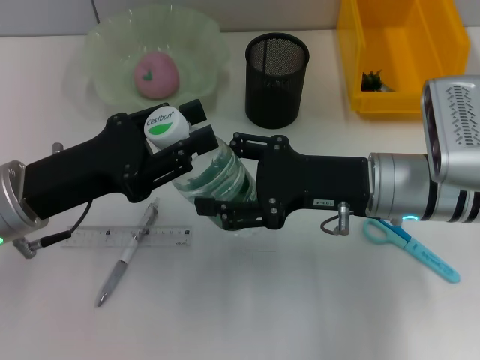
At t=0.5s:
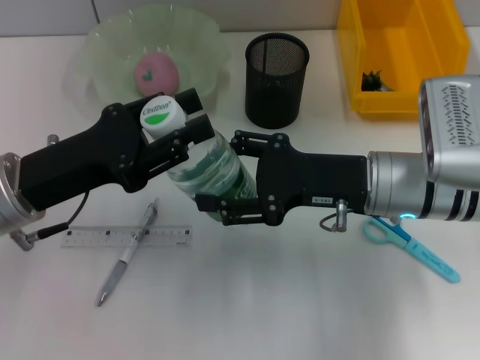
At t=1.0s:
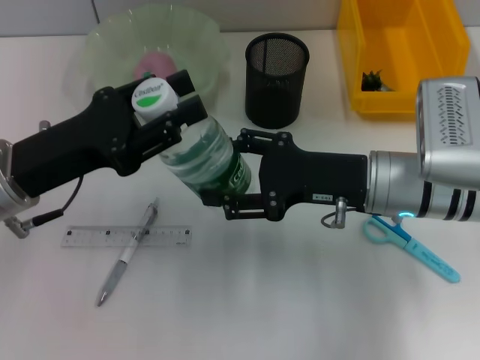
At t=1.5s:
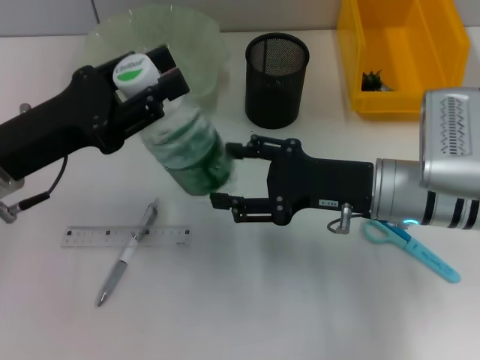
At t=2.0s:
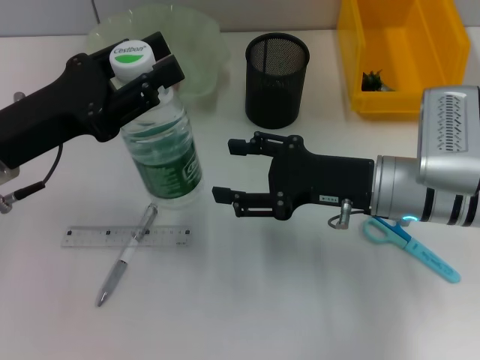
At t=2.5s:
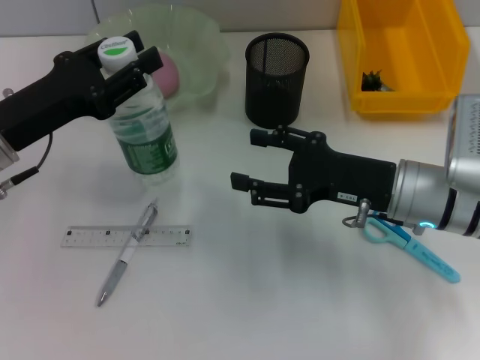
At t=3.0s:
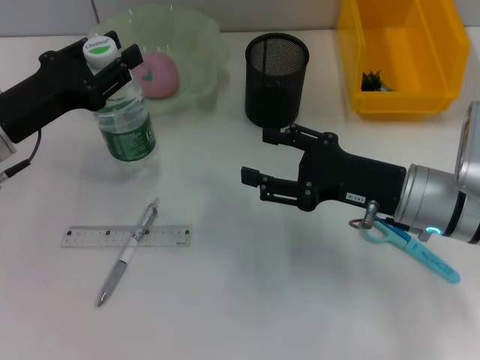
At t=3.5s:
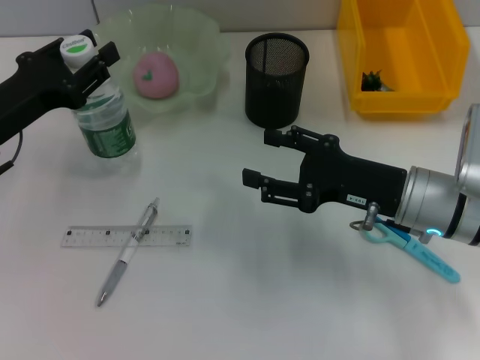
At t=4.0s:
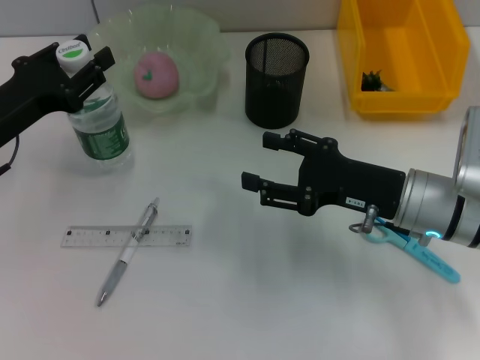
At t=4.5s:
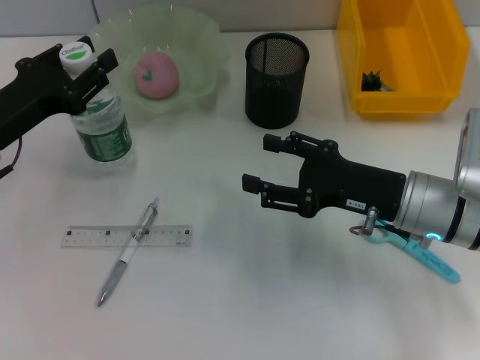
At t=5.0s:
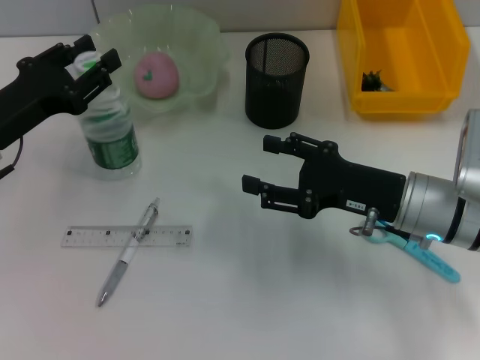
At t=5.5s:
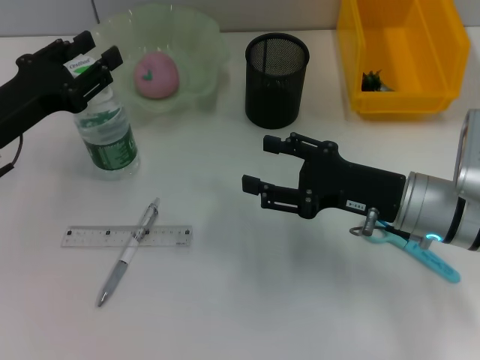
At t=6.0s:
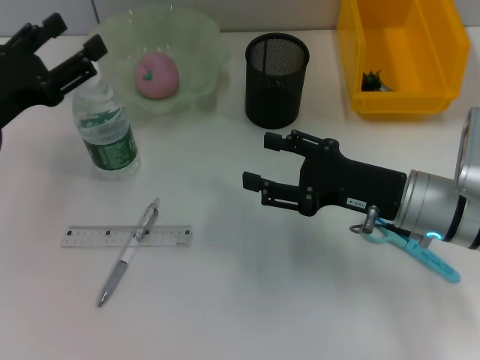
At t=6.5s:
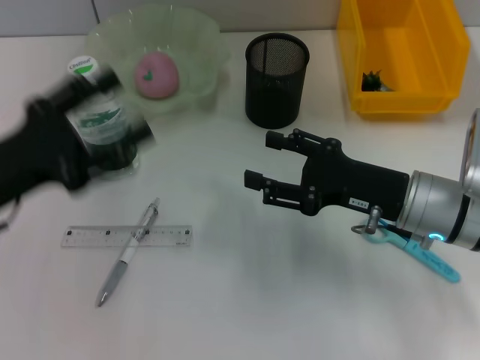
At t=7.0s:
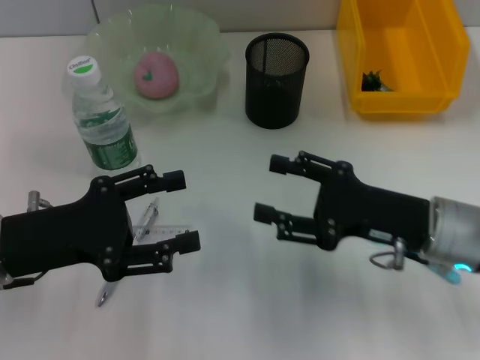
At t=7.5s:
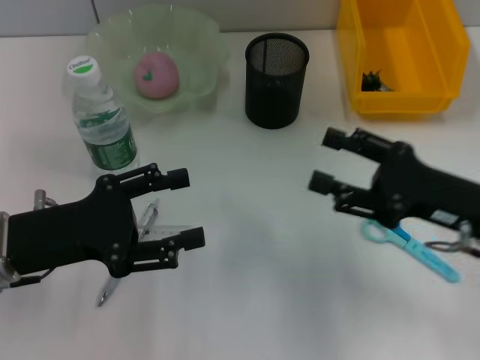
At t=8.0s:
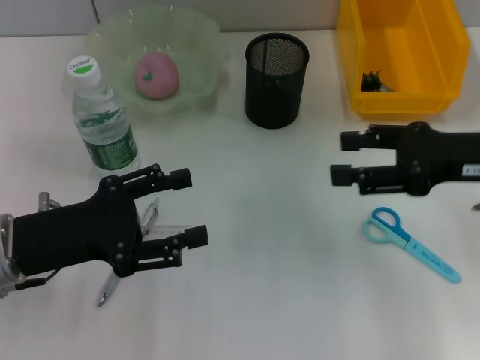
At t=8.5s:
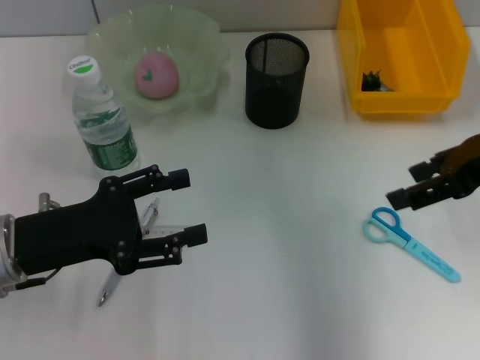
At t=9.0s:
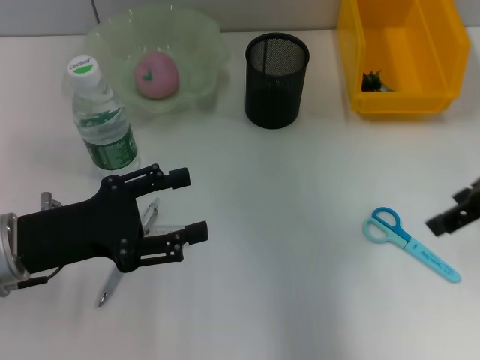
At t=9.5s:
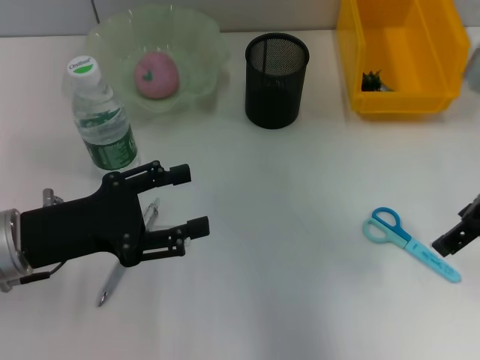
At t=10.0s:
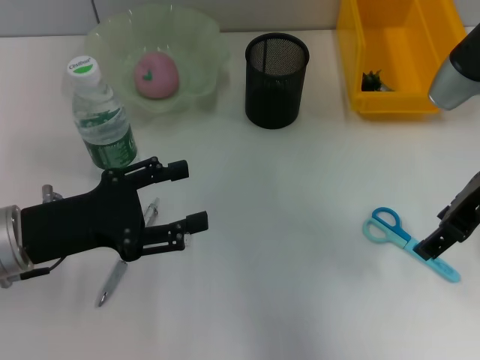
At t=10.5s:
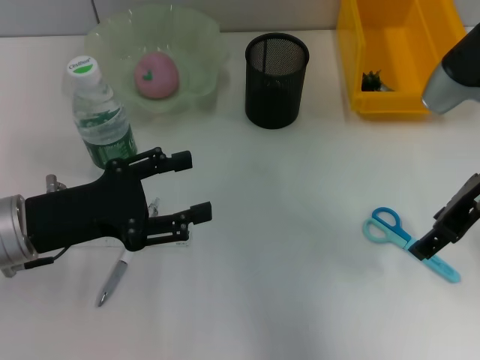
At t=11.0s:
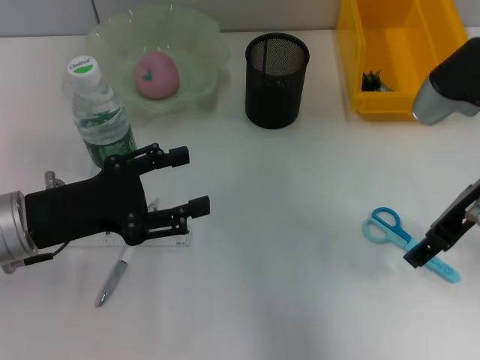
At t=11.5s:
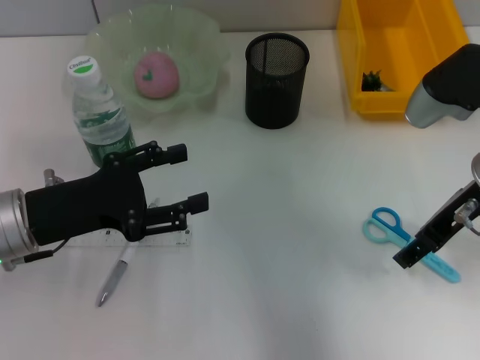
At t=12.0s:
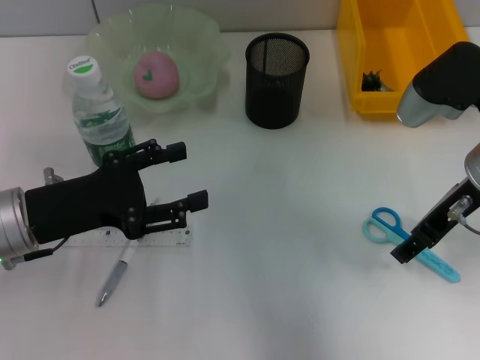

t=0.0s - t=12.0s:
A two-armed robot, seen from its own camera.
Step, t=2.0s - t=5.0s: Place the water bottle on the table with the left hand.
t=2.0s - t=4.0s: The left gripper shifts by some 5 cm.
t=4.0s - t=6.0s: The left gripper opens up.
t=6.0s - t=8.0s: The right gripper moves upward and to the right, approximately 10 cm. The left gripper travels backward by some 5 cm.
t=8.0s - t=10.0s: The right gripper changes place by some 5 cm.
t=10.0s - t=12.0s: There are only small adjustments of the grippers.

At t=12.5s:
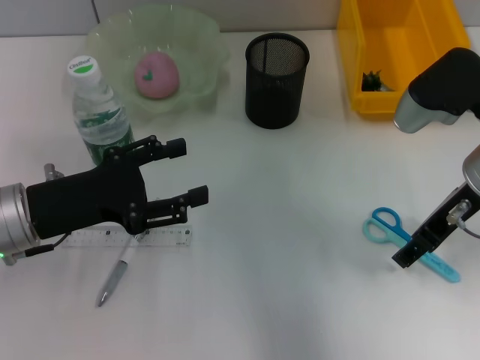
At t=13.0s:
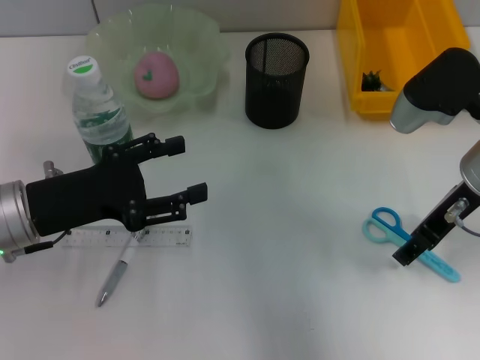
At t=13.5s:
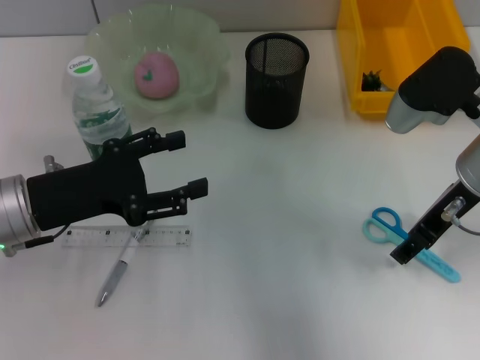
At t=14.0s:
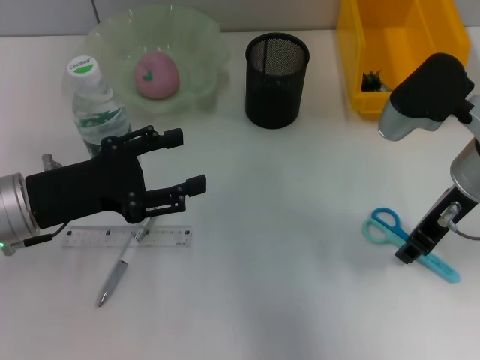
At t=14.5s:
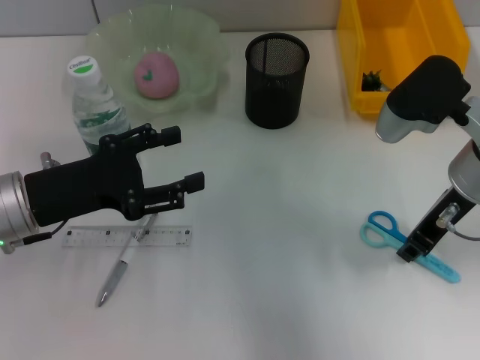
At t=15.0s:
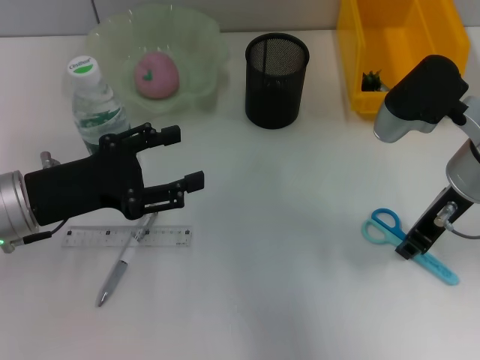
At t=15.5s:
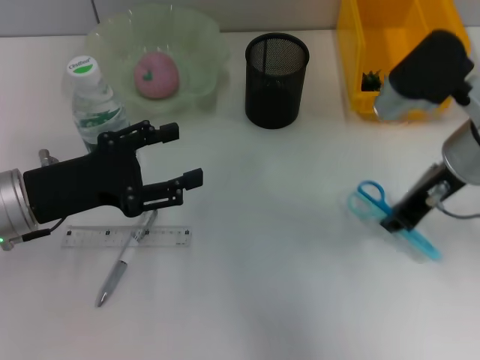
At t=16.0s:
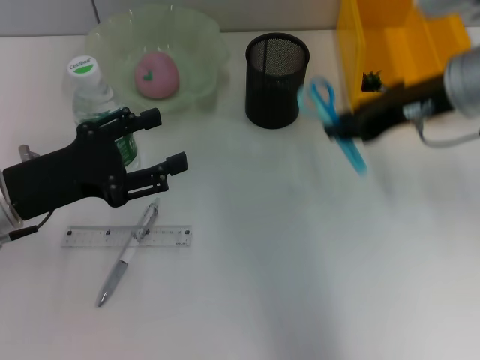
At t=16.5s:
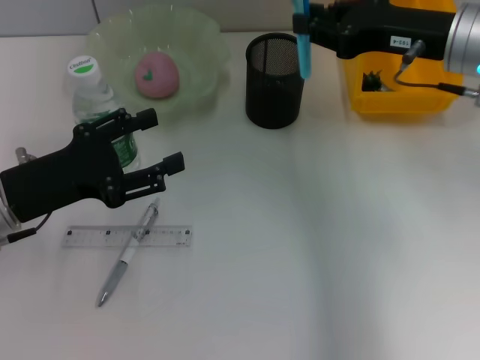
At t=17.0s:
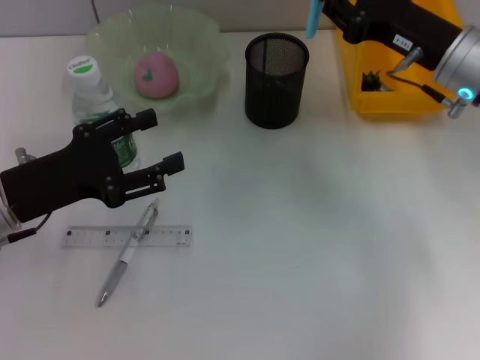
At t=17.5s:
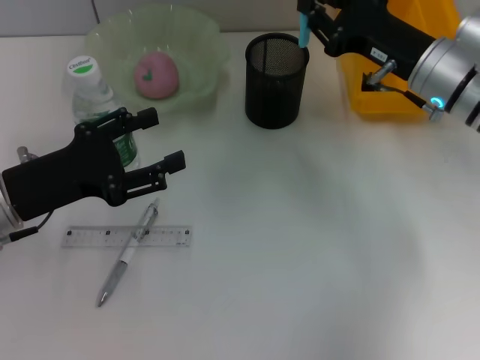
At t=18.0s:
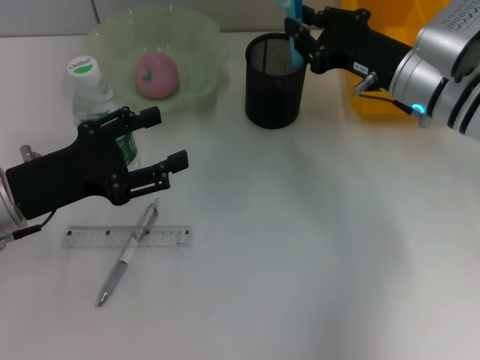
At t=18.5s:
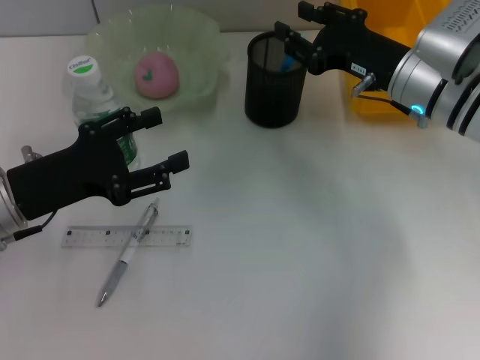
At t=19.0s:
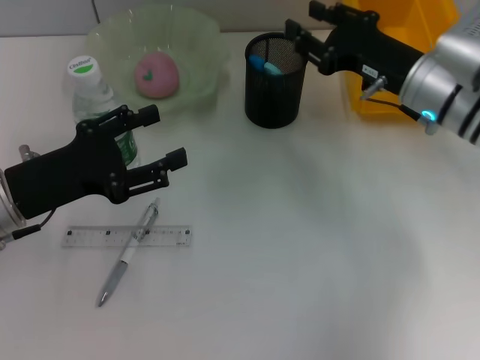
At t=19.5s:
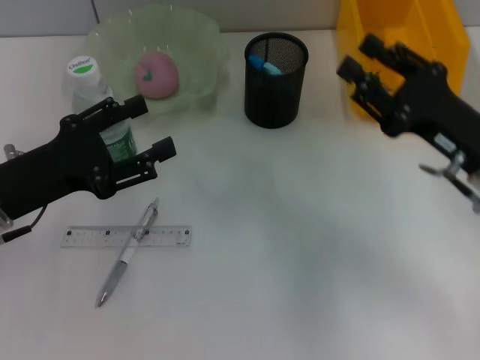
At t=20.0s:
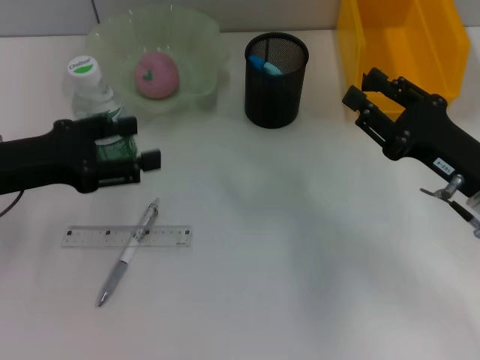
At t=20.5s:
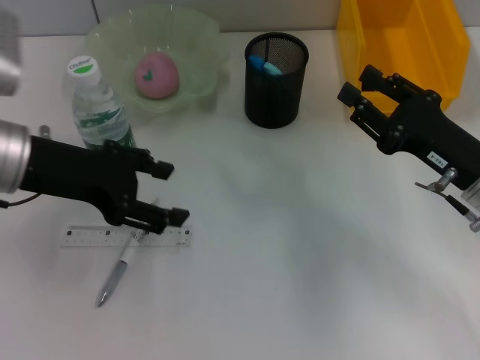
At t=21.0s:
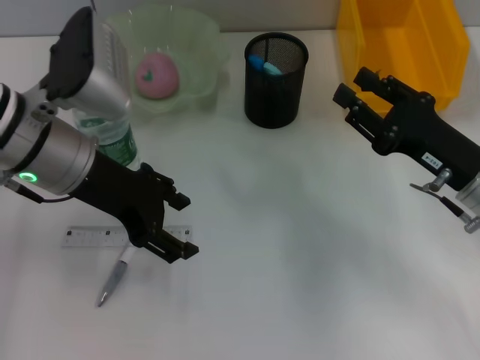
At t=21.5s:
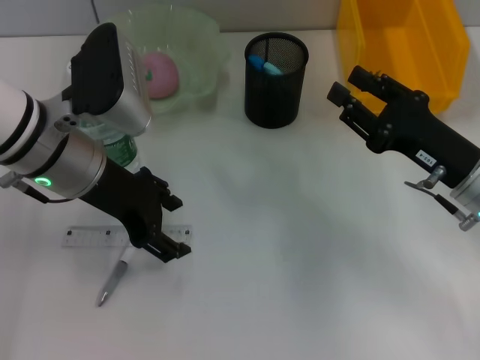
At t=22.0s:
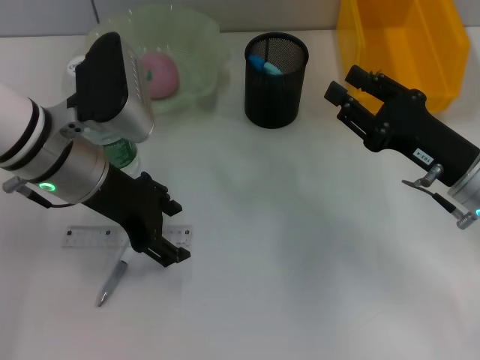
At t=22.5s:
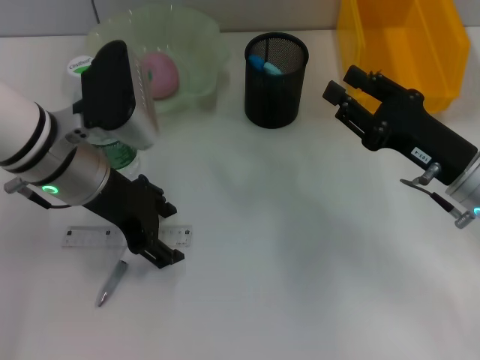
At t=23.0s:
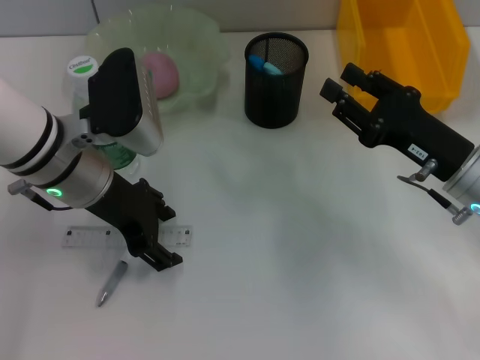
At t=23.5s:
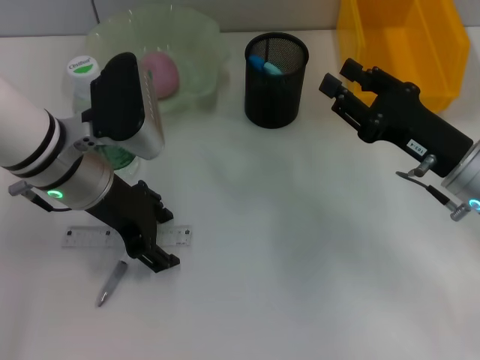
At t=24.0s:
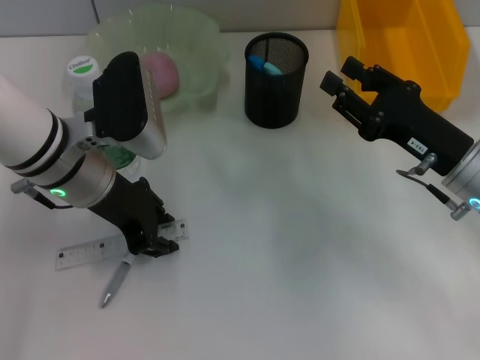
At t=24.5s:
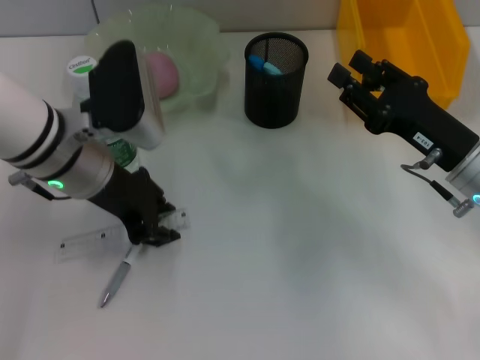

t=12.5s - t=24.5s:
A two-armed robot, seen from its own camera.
Step, t=12.5s - t=14.5s: Grab the blue scissors with the right hand.
Step, t=15.0s - t=18.5s: Place the blue scissors into the pen holder with the right hand.
Step, t=19.0s - t=24.0s: Grab the ruler with the left hand.
t=12.5s - t=14.5s: The right gripper closes up.
t=14.5s - t=16.5s: The right gripper shifts by about 5 cm.
t=16.5s - t=18.5s: The right gripper is displaced downward by about 10 cm.
t=18.5s - t=20.5s: The right gripper moves backward and to the right, about 10 cm. Meanwhile the left gripper goes approximately 10 cm upward.
t=20.5s - t=22.5s: The left gripper is displaced to the right by roughly 5 cm.
t=22.5s - t=24.5s: The left gripper closes its fingers.

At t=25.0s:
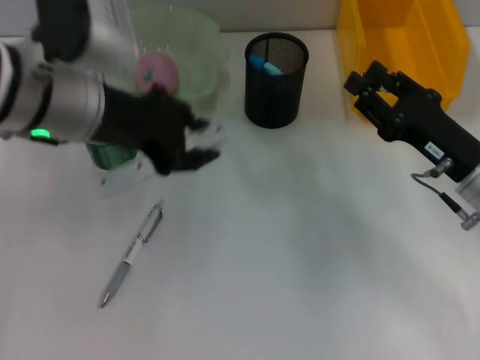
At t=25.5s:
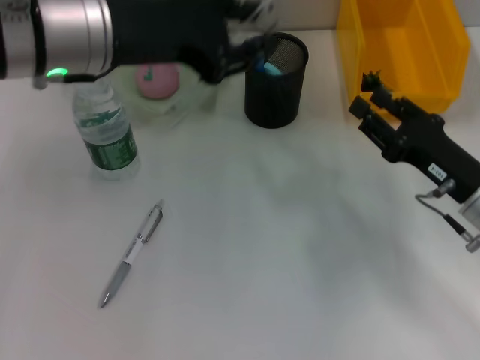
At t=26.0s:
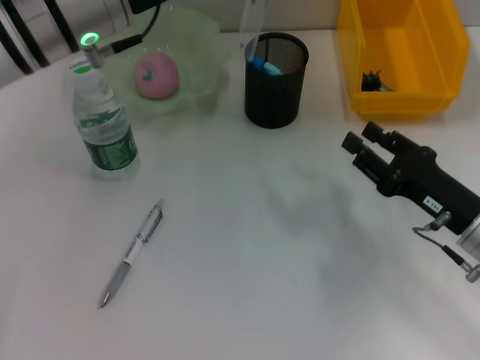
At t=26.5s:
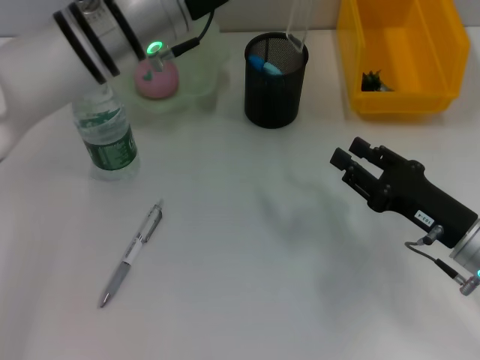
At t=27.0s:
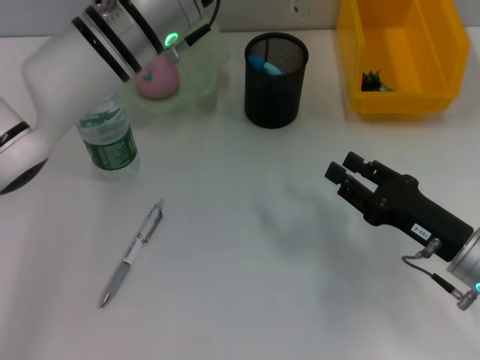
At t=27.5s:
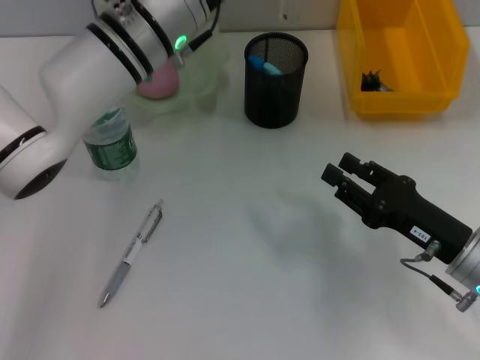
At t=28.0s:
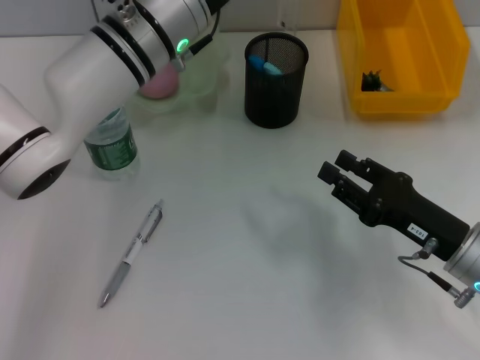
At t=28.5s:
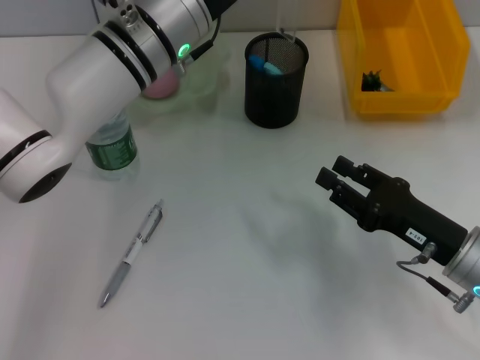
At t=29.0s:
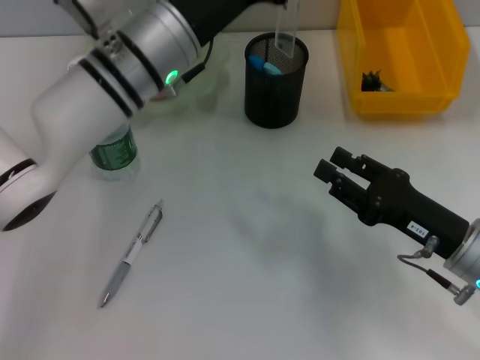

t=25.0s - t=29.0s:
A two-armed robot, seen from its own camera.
t=25.0s - t=27.0s: The left gripper is displaced to the right and forward by about 10 cm, while the right gripper moves backward, approximately 5 cm.
t=27.0s - t=29.0s: The grippers stay close to where they were, moving slightly.
